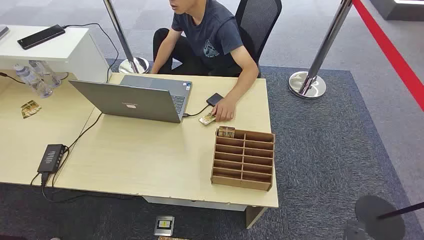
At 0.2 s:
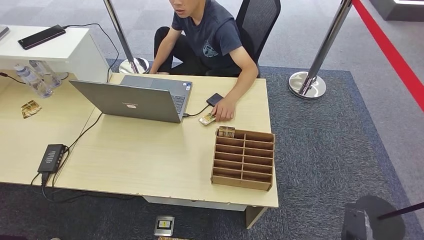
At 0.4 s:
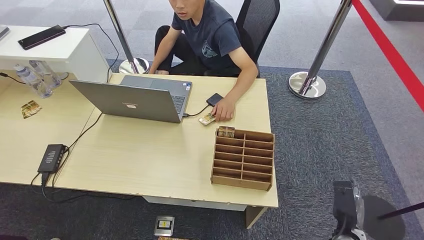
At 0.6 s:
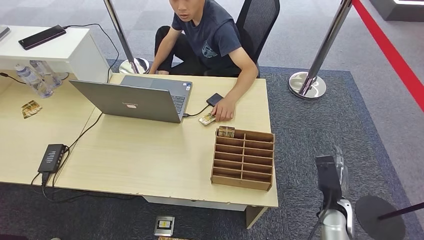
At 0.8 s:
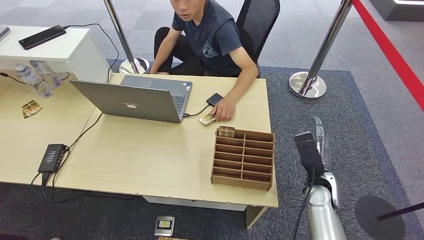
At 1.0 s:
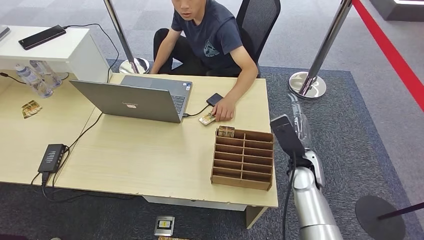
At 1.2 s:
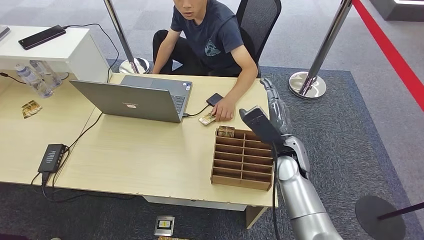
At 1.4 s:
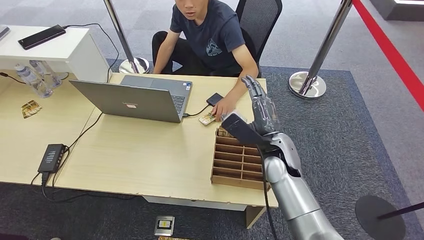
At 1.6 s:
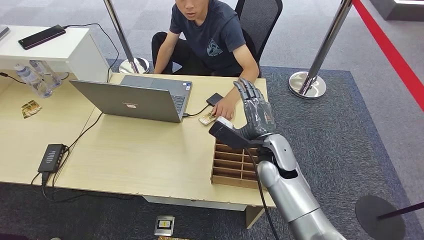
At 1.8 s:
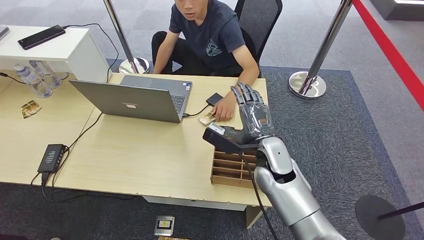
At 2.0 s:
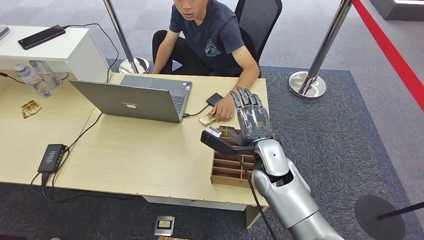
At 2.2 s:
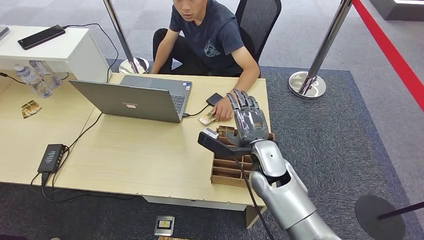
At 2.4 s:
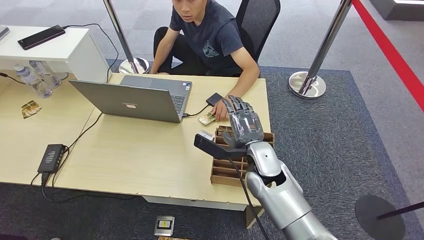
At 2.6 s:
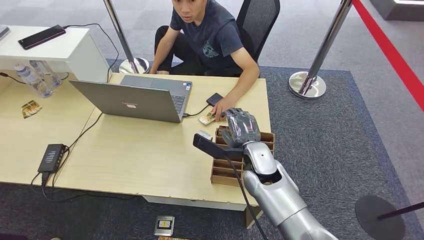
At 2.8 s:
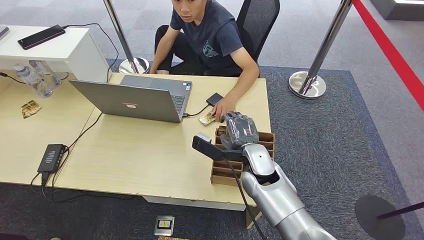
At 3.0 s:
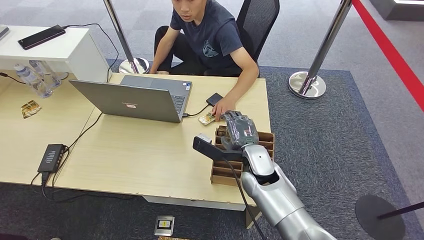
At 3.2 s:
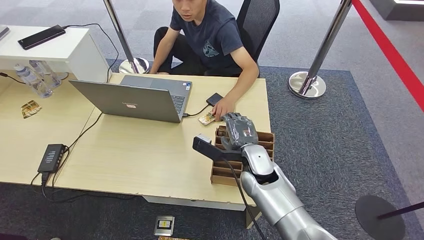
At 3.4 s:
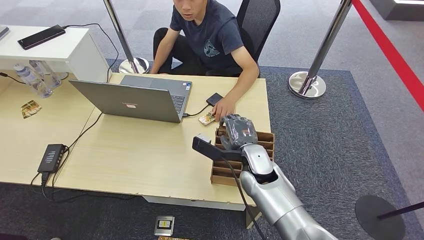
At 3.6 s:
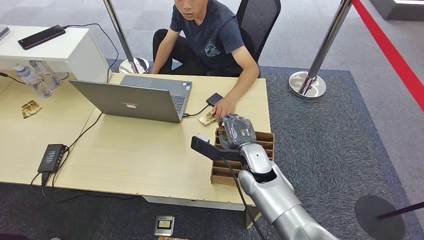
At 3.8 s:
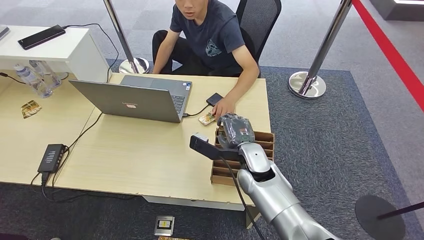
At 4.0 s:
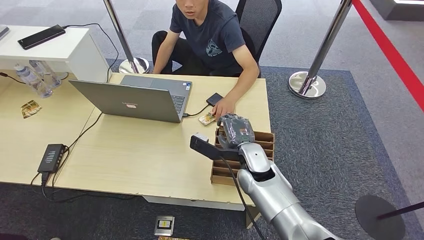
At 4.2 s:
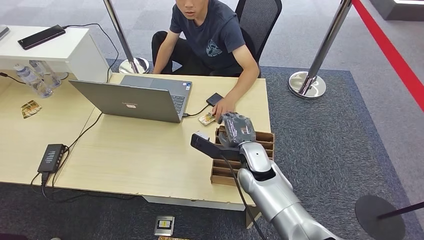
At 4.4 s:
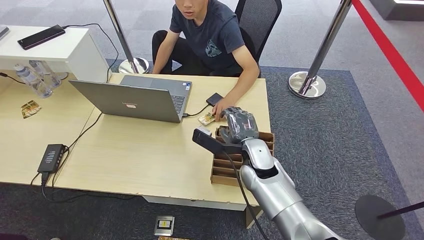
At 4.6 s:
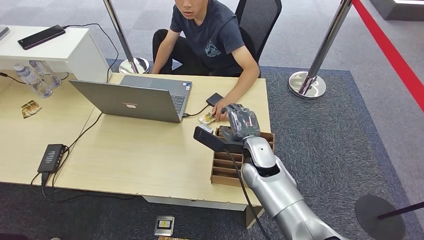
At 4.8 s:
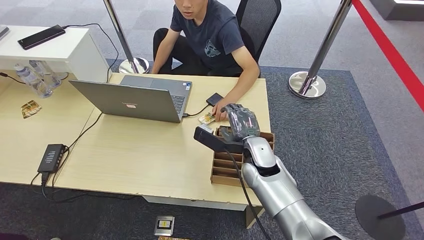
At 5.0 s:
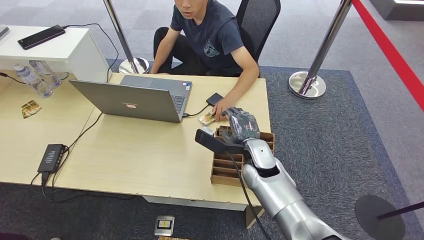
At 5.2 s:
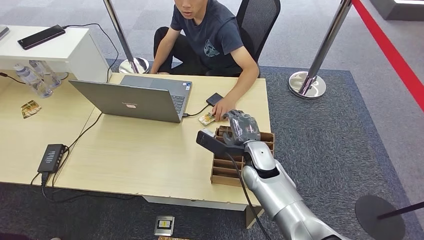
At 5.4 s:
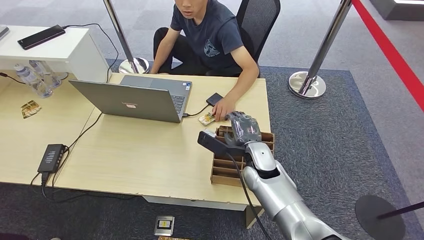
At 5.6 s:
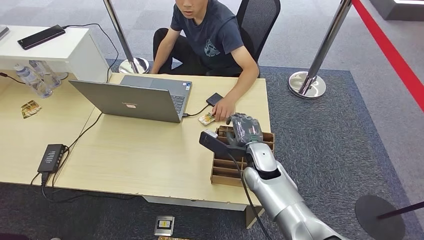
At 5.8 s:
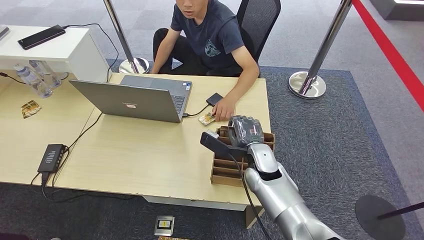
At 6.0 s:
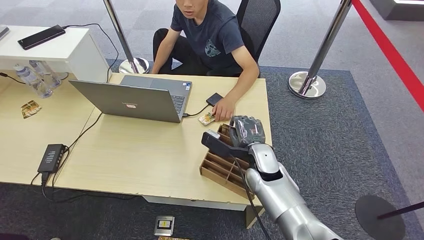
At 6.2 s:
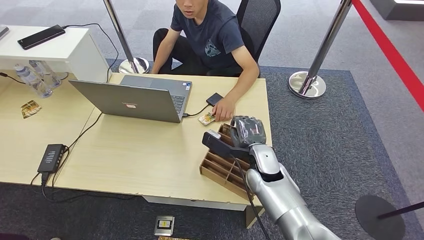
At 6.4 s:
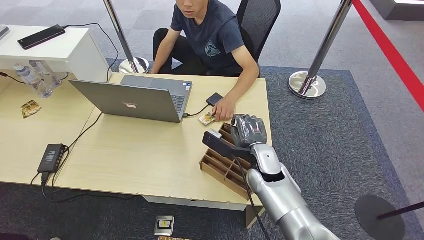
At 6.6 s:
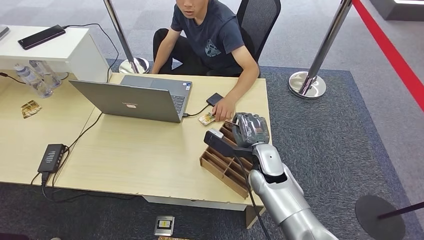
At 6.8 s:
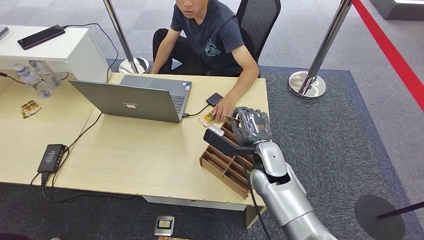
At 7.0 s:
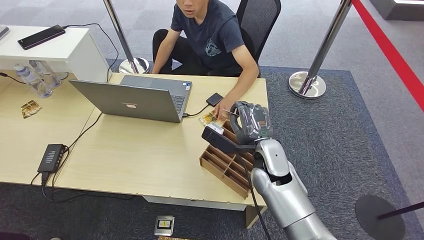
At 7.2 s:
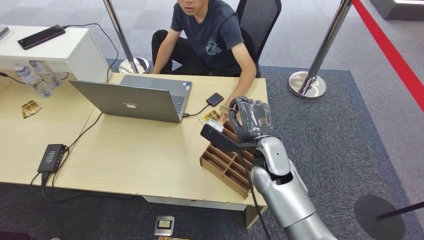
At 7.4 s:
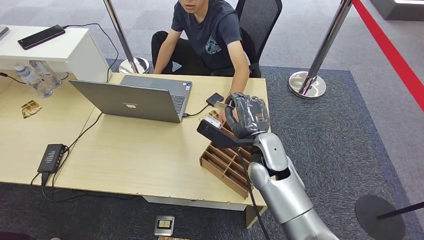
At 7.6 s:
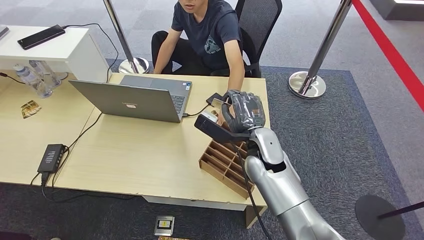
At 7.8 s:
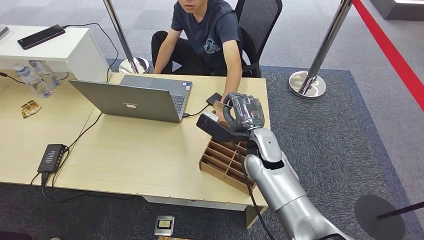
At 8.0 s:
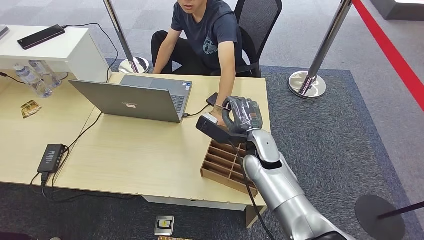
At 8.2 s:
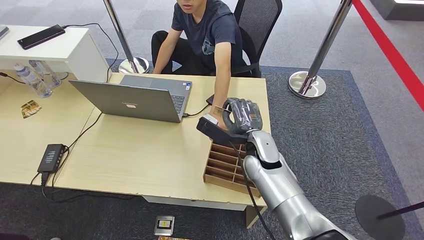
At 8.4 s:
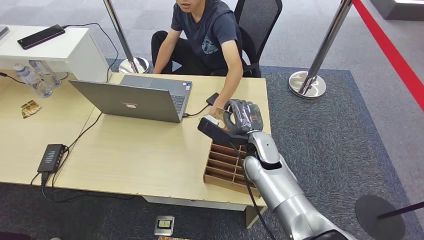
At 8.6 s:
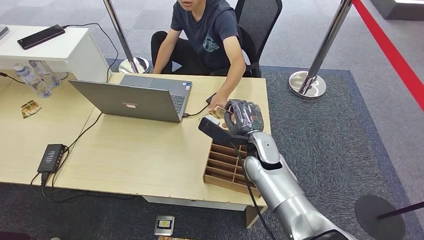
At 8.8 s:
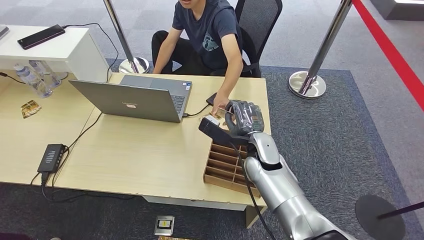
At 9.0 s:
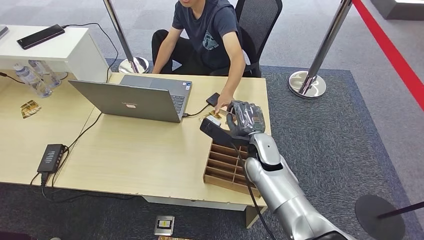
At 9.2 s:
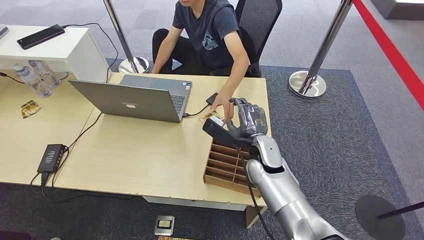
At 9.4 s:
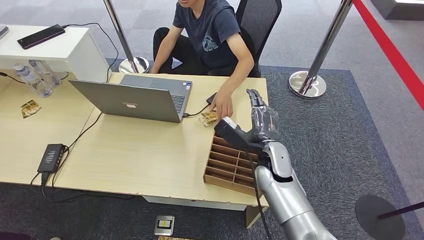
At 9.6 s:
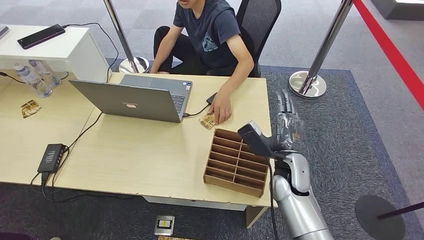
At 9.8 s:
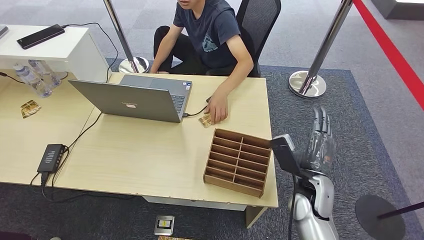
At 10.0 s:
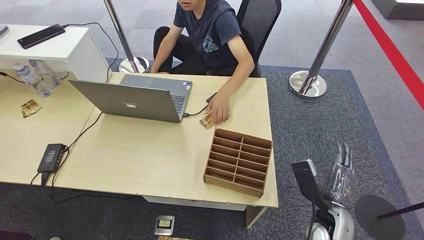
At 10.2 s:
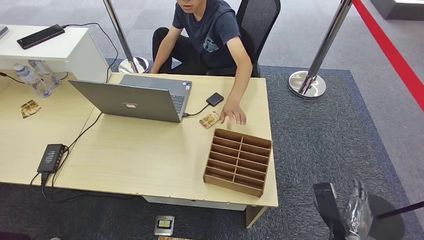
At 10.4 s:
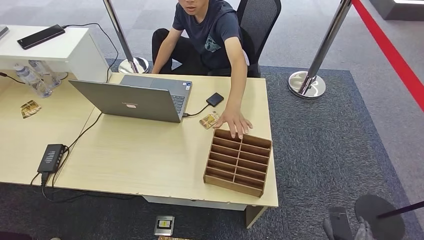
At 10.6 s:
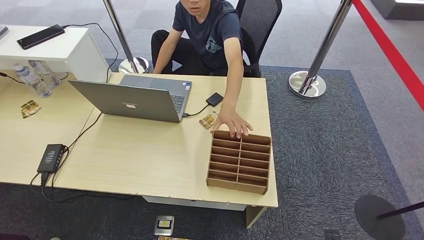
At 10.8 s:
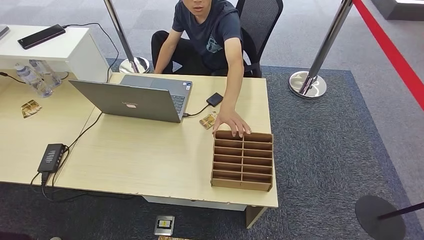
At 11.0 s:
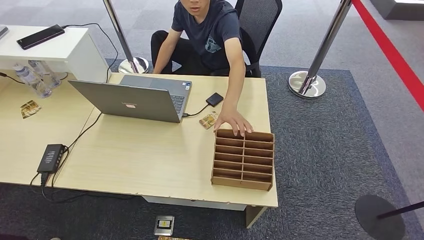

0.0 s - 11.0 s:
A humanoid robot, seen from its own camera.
Step, 0.0 s - 7.6 s: Pick up the key card from the card box.
Step, 7.8 s - 11.0 s: Hand the key card to the target.
1.6 s - 3.2 s: The right hand ends up about 5 cm from where it was.
3.2 s - 6.2 s: There are only small adjustments of the hands.
6.2 s - 7.8 s: The right hand is displaced upward by some 5 cm.
7.8 s - 9.4 s: The hands move only a little.
9.4 s - 11.0 s: The right hand goes roughly 40 cm backward, downward and to the right.

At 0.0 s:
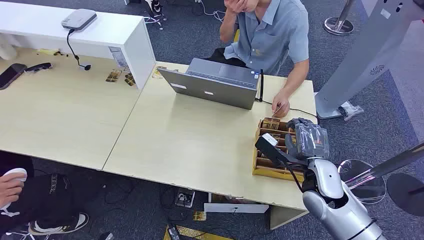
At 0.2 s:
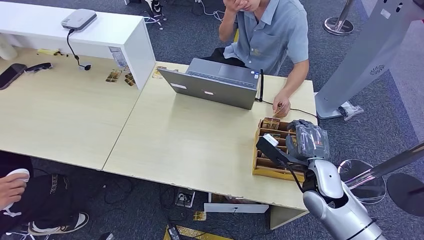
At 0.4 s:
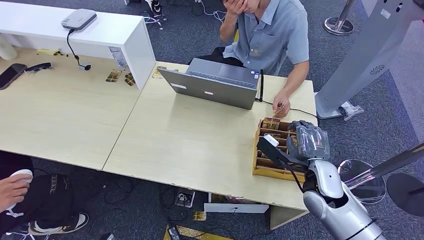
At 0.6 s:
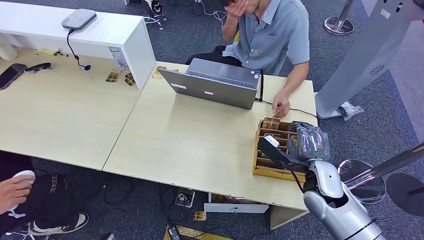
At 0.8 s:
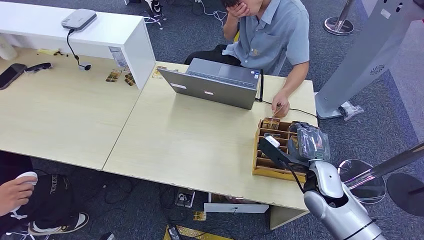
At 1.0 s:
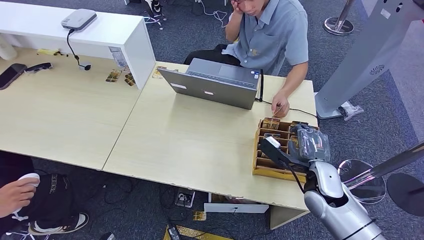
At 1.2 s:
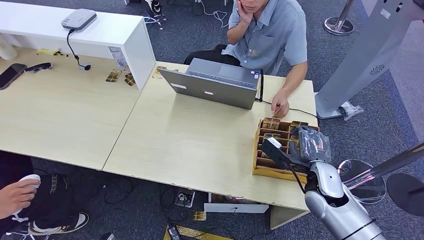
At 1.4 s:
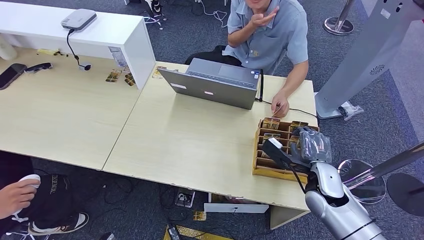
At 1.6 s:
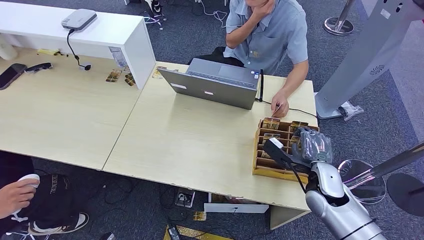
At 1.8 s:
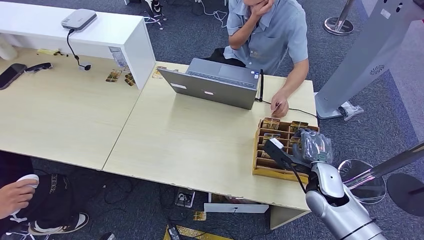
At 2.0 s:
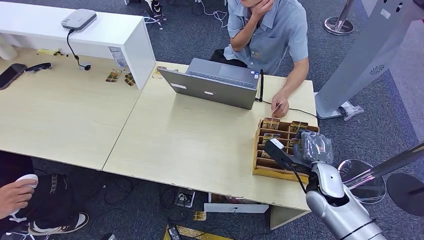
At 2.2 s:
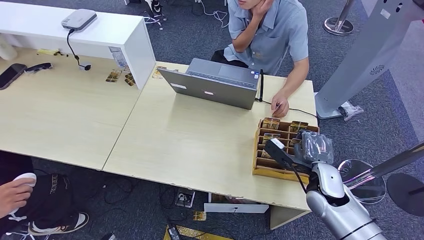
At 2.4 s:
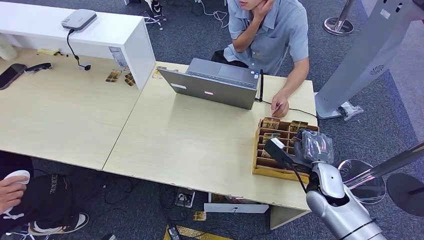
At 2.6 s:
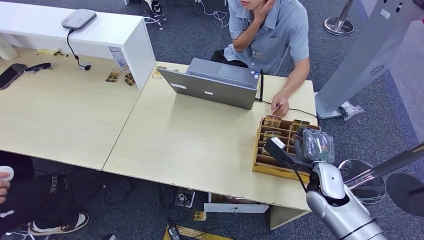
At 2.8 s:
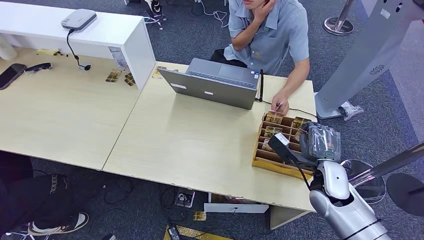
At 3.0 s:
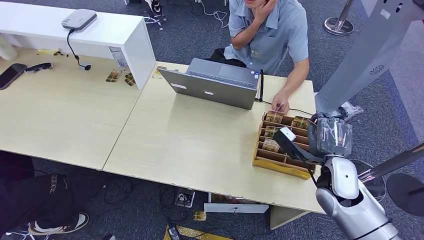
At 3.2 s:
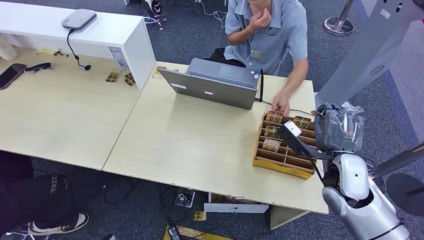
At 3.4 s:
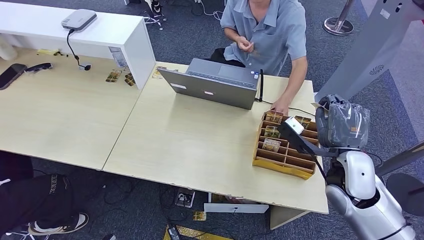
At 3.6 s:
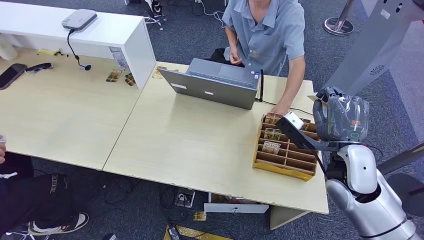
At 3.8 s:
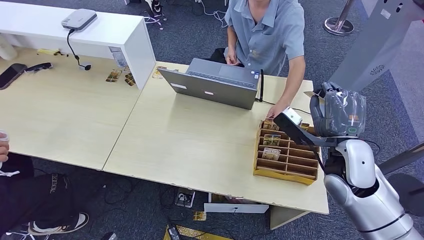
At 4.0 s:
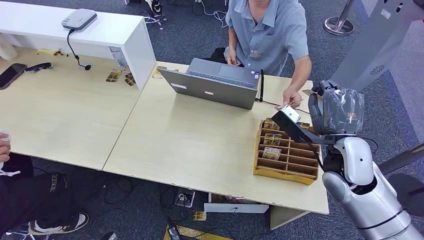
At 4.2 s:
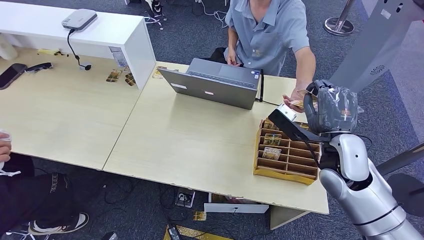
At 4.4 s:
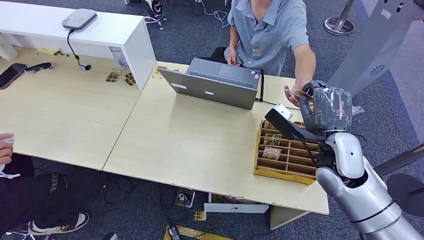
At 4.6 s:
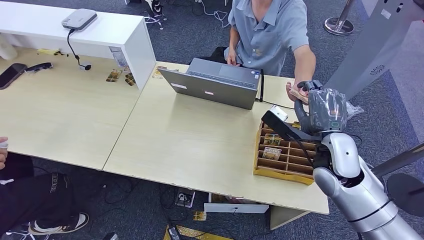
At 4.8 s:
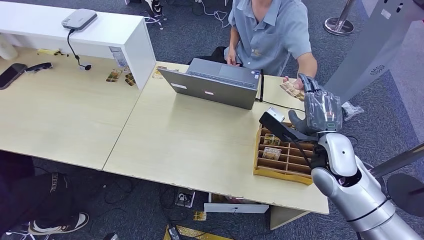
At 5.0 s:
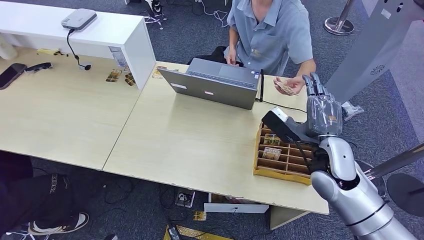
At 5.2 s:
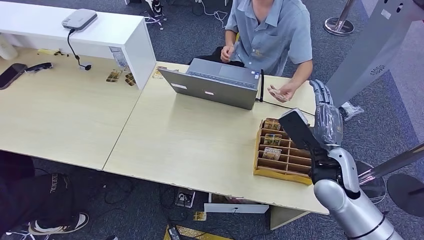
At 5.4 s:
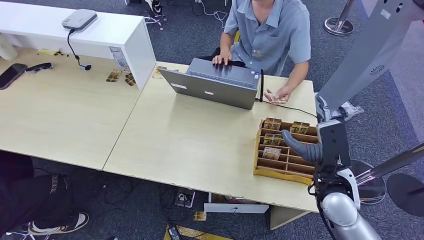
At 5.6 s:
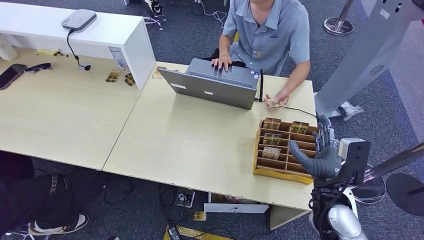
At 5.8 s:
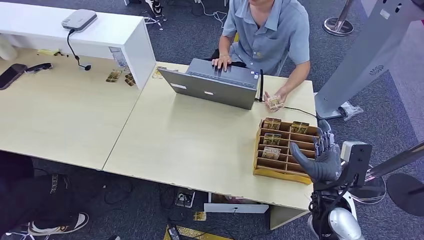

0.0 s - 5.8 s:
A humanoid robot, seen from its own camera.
Step, 0.0 s - 4.4 s: Pick up the key card from the card box.
Step, 4.6 s - 5.6 s: Hand the key card to the target.
1.4 s - 2.8 s: There are only small adjustments of the hands.
2.8 s - 4.4 s: The right hand goes about 10 cm upward.
4.4 s - 5.8 s: The right hand travels backward and downward by some 10 cm.
